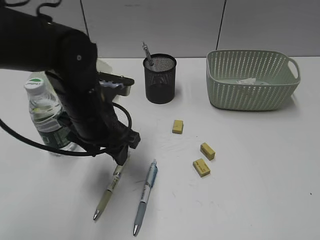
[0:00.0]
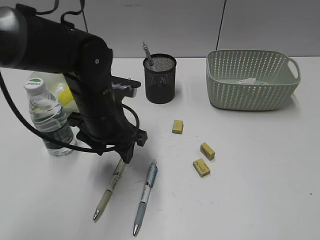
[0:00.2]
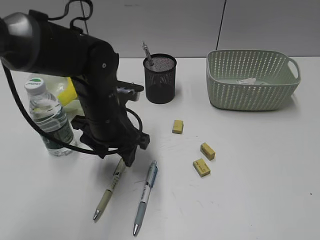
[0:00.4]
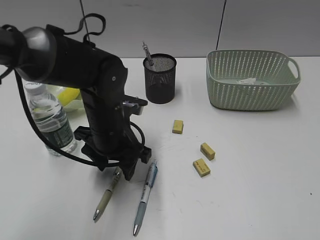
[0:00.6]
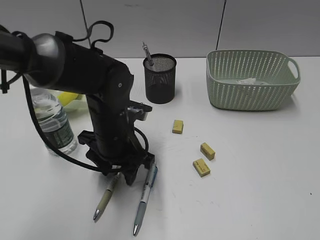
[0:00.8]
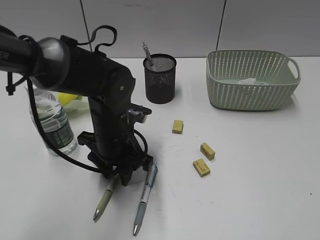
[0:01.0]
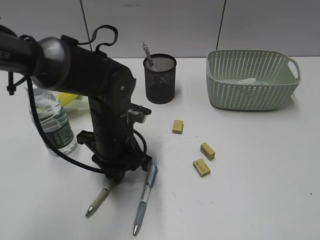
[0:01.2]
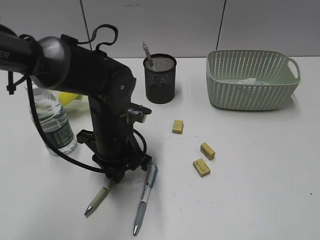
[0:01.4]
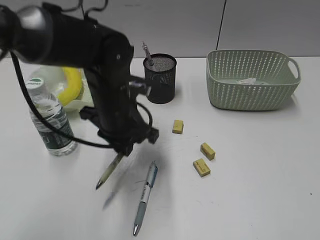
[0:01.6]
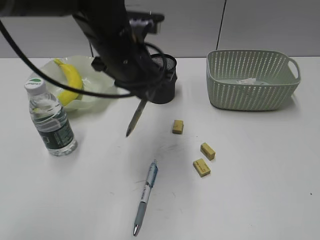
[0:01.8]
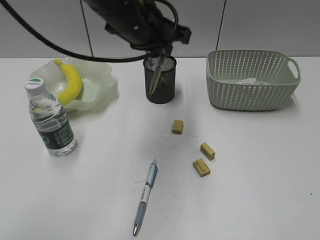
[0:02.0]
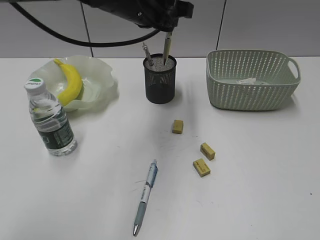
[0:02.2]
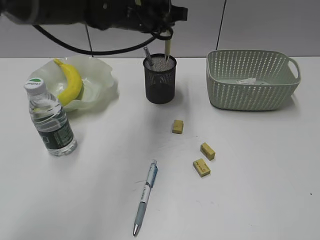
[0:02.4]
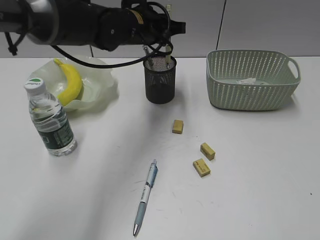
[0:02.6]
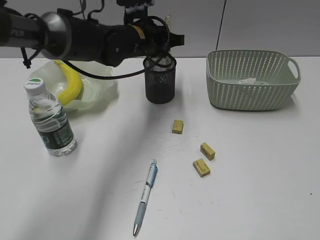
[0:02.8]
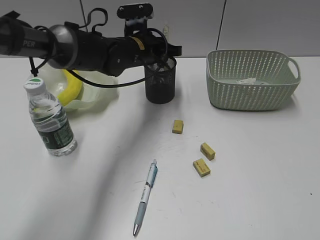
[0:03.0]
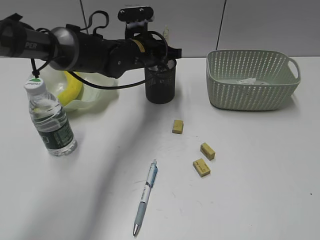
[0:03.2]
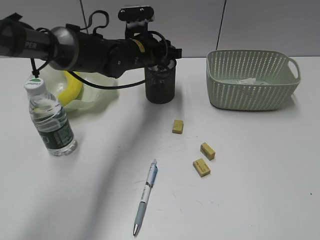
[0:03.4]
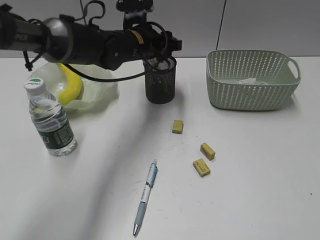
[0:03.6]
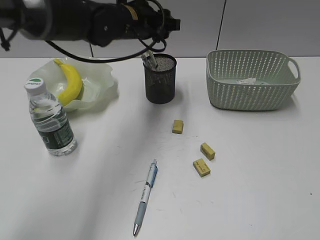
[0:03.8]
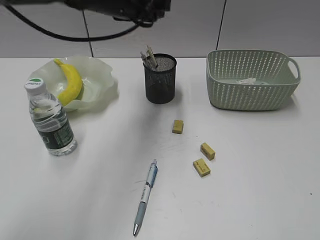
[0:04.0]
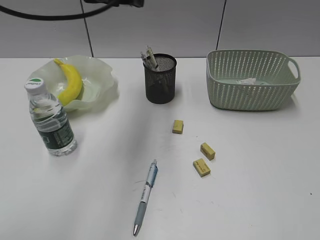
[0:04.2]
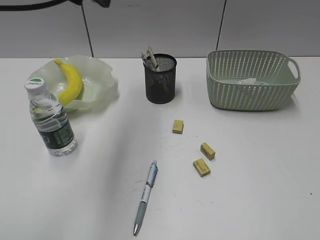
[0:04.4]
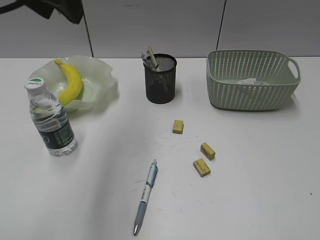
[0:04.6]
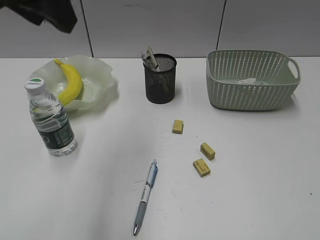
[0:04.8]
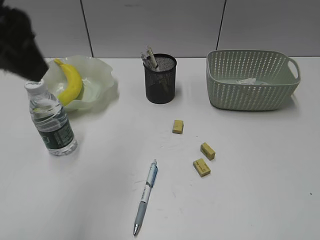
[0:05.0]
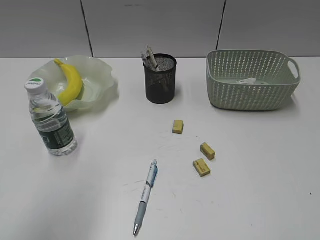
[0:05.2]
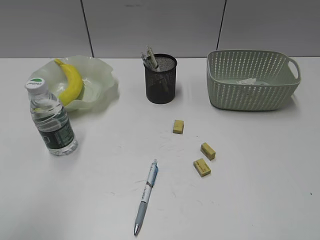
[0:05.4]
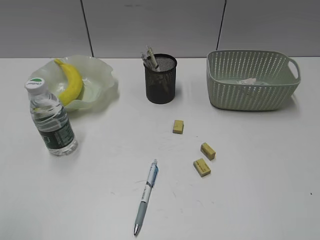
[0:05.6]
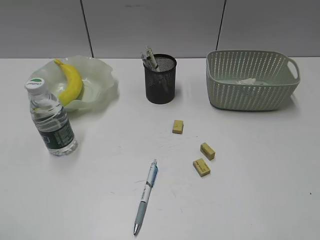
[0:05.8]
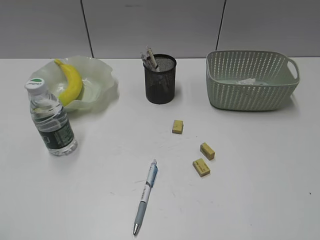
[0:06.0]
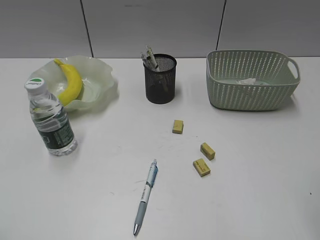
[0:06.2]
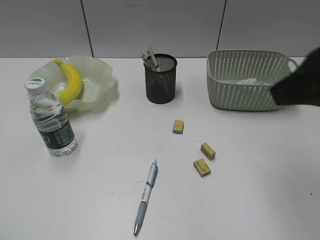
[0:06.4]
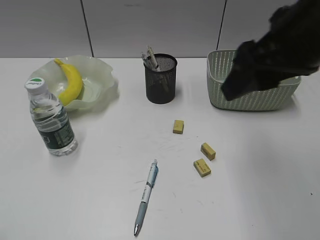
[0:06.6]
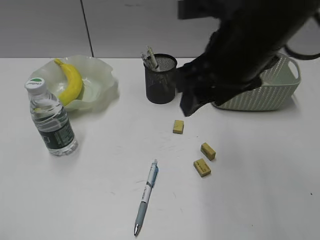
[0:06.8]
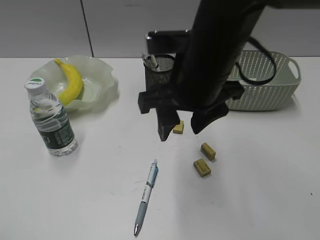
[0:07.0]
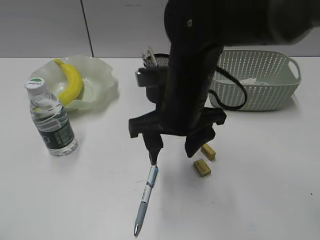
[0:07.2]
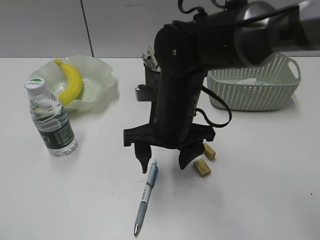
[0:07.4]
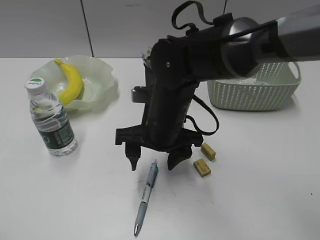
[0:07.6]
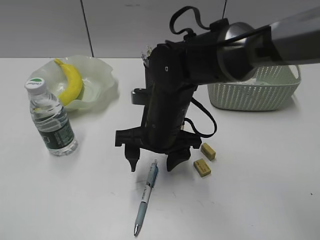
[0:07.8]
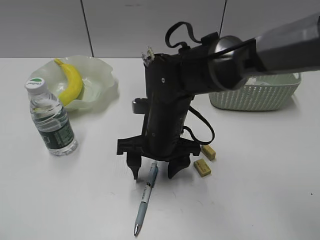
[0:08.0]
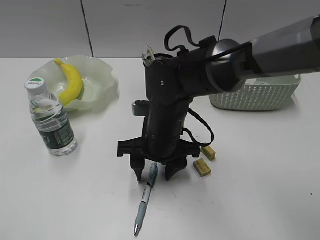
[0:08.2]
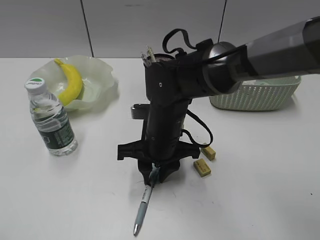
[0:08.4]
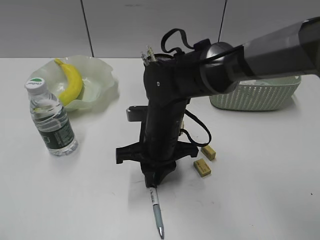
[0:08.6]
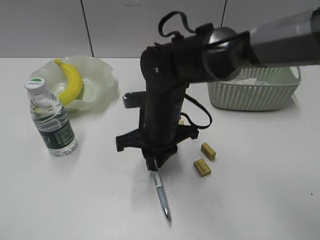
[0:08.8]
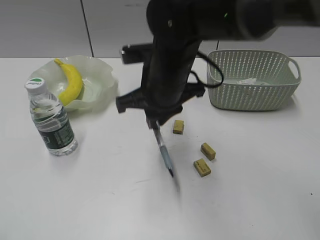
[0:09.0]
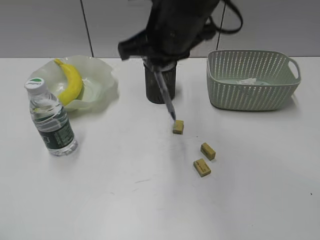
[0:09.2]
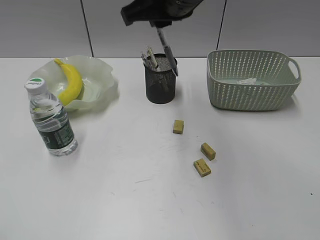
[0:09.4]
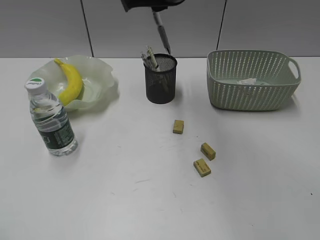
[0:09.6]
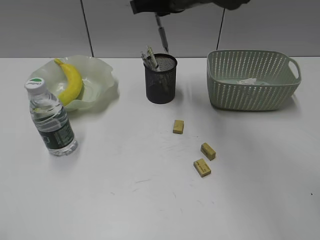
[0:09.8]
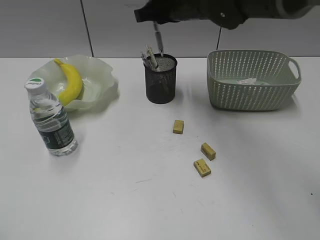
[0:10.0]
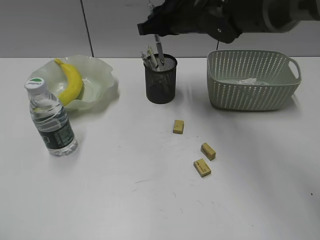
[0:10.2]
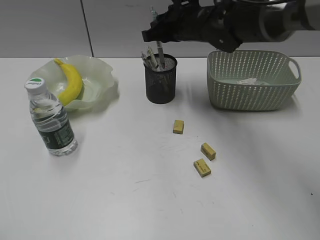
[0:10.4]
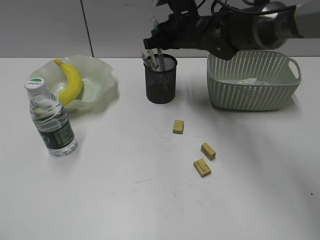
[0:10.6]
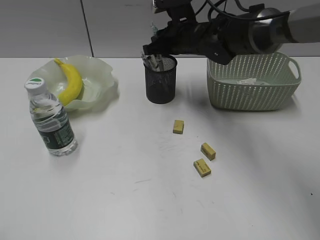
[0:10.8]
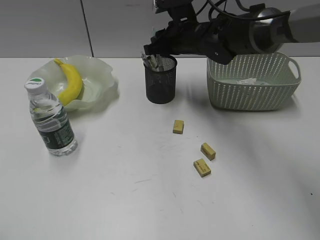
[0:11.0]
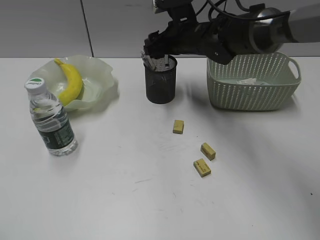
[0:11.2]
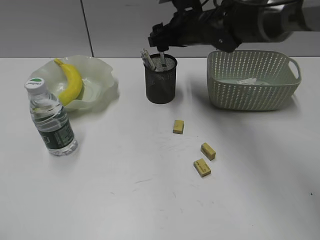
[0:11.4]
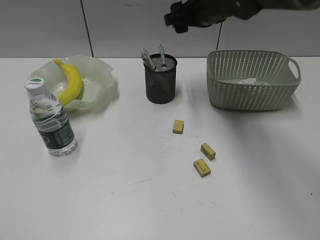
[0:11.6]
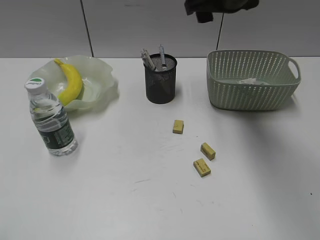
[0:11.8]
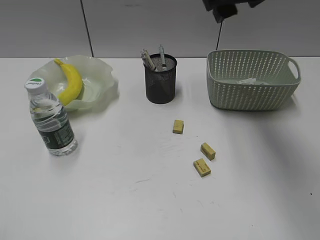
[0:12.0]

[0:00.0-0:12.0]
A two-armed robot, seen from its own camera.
Step, 0:01.4 to 0:03.6: Place the yellow pen in pen holder with left gripper.
Step, 0:03.8 to 0:08.6: Grasp the blue pen with right gripper.
Step, 0:08.8 to 0:11.4: Place the blue pen in pen holder with right gripper.
0:00.0 to 0:01.6: The left gripper closes up.
0:01.6 to 0:03.0: The left gripper shifts approximately 15 cm forward.
0:03.0 to 0:04.4: The left gripper is displaced upward, backward and to the left by about 25 cm, and opens up.
0:04.4 to 0:06.0: The left gripper is displaced backward and to the left by about 40 cm, while the right gripper changes place by roughly 5 cm.
0:06.0 to 0:07.6: The right gripper goes some 40 cm to the left, forward and downward.
0:07.6 to 0:09.0: The right gripper goes about 5 cm upward, and closes up.
0:09.0 to 0:10.4: The right gripper travels forward by about 15 cm.
0:10.4 to 0:12.0: The right gripper shifts roughly 15 cm upward, backward and to the right, and opens up.

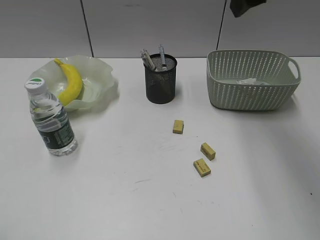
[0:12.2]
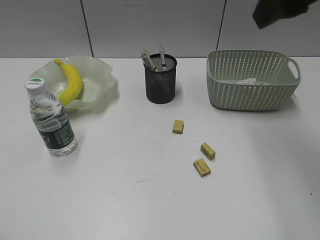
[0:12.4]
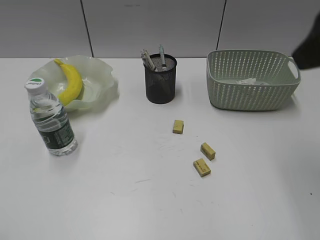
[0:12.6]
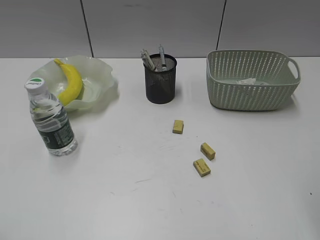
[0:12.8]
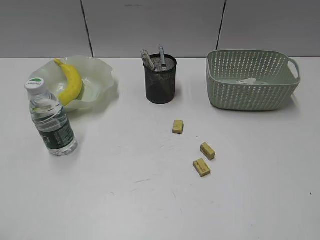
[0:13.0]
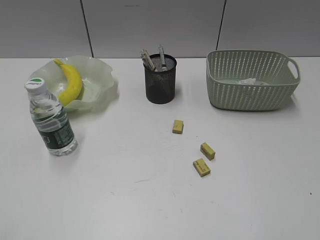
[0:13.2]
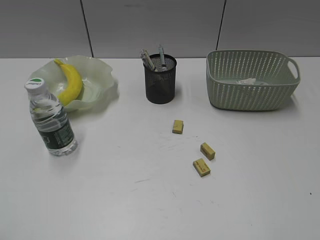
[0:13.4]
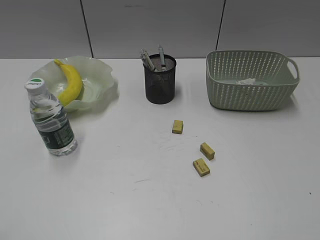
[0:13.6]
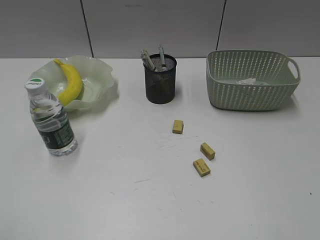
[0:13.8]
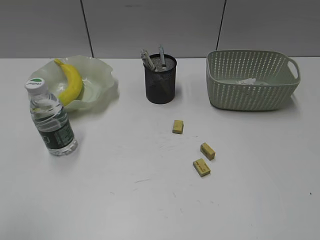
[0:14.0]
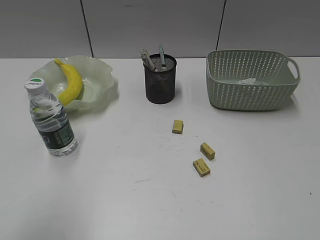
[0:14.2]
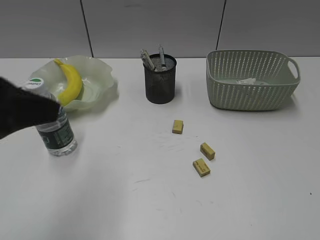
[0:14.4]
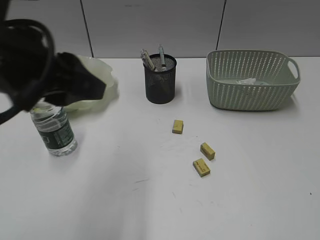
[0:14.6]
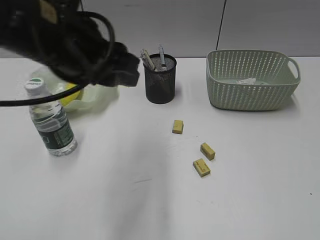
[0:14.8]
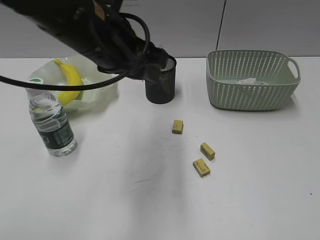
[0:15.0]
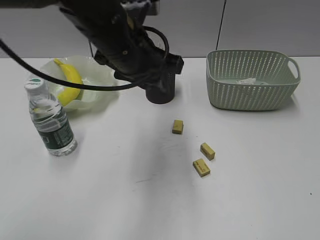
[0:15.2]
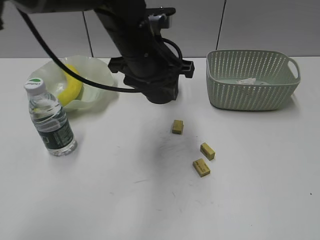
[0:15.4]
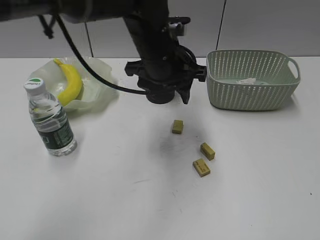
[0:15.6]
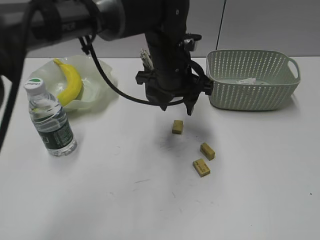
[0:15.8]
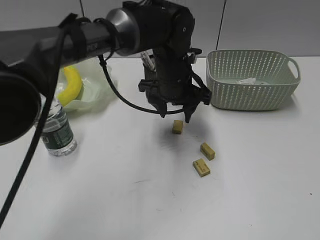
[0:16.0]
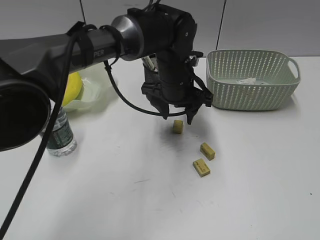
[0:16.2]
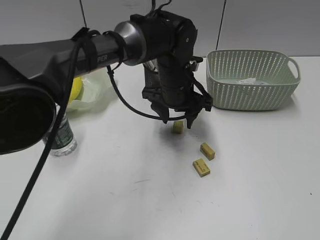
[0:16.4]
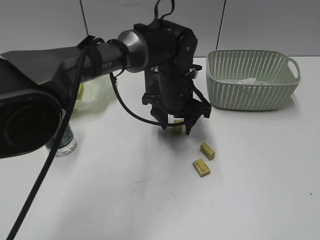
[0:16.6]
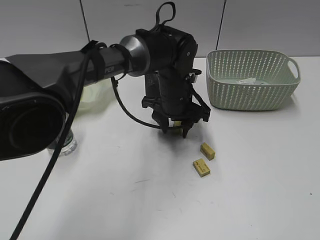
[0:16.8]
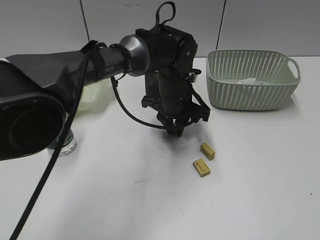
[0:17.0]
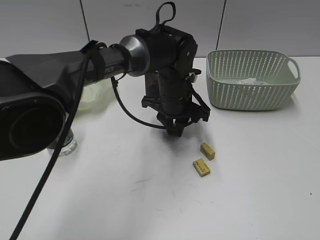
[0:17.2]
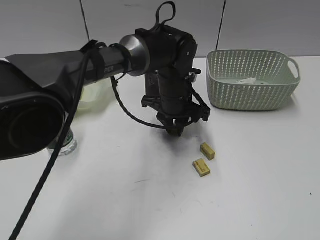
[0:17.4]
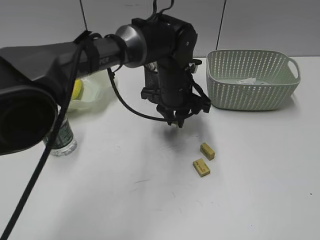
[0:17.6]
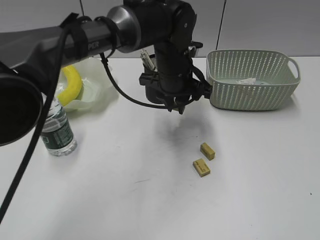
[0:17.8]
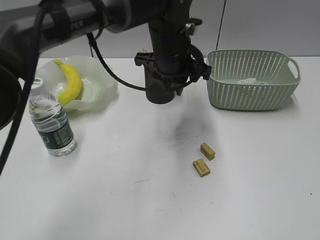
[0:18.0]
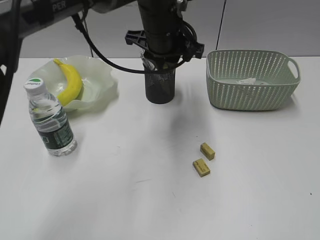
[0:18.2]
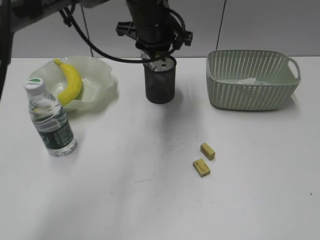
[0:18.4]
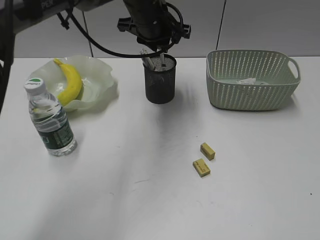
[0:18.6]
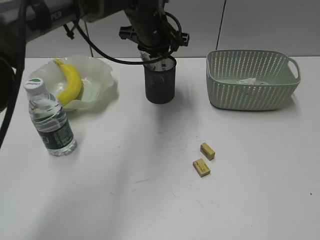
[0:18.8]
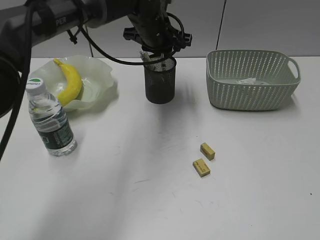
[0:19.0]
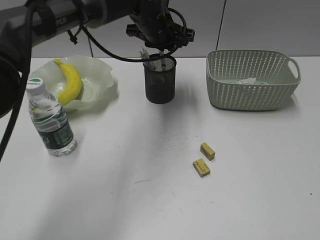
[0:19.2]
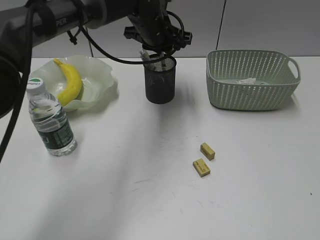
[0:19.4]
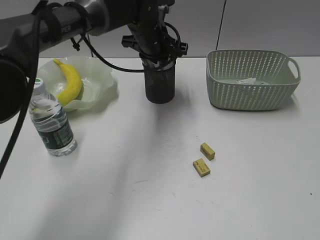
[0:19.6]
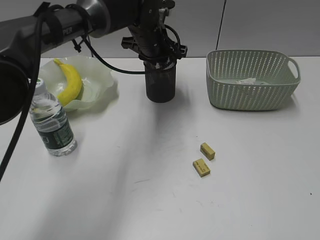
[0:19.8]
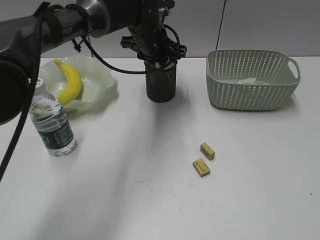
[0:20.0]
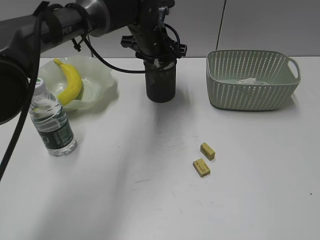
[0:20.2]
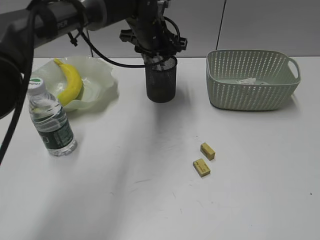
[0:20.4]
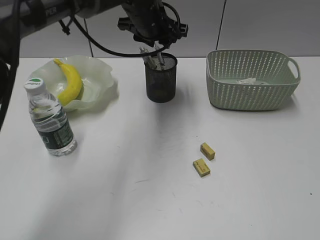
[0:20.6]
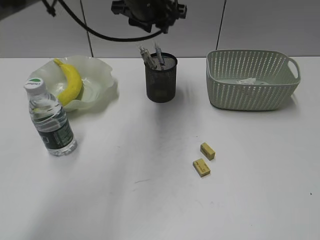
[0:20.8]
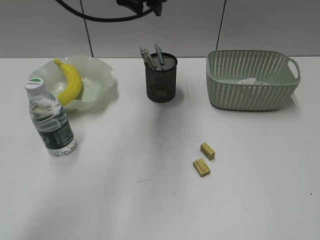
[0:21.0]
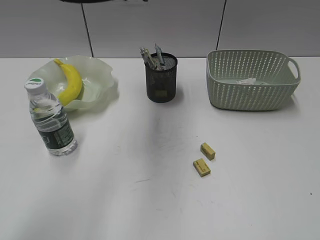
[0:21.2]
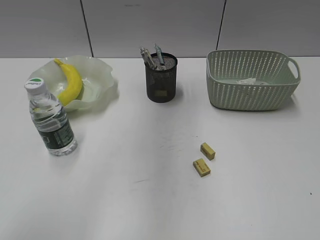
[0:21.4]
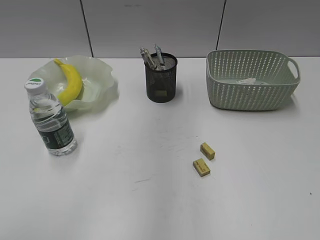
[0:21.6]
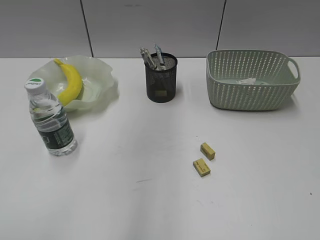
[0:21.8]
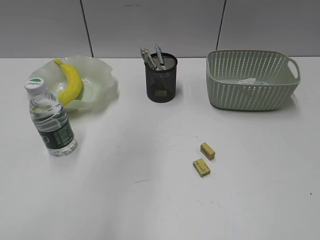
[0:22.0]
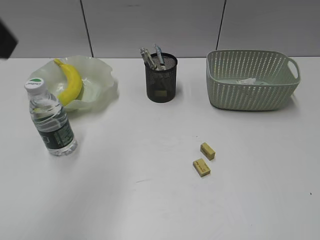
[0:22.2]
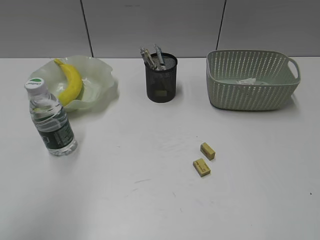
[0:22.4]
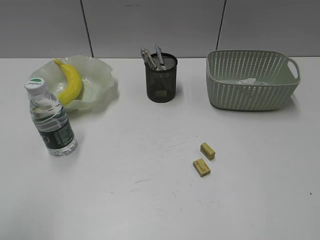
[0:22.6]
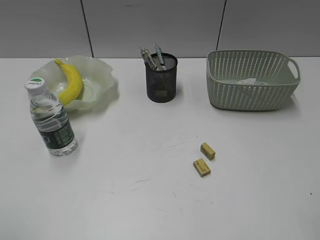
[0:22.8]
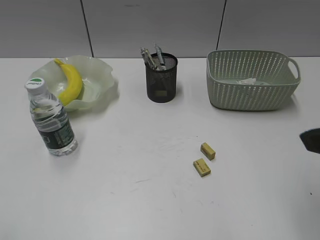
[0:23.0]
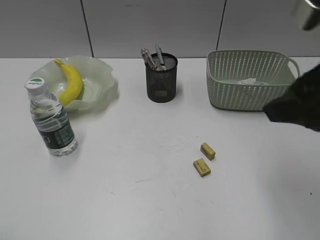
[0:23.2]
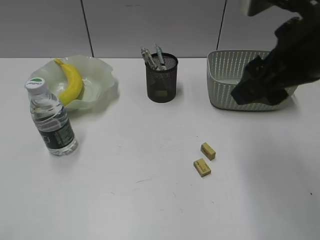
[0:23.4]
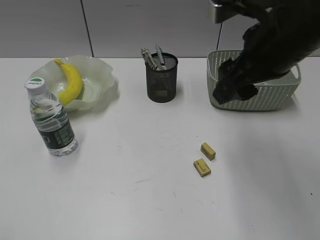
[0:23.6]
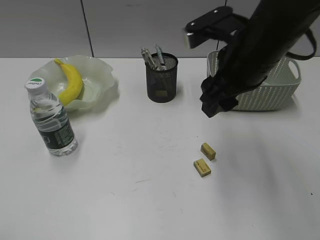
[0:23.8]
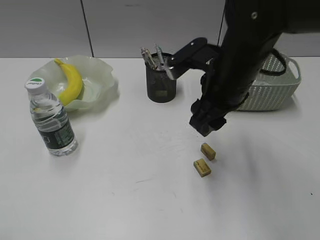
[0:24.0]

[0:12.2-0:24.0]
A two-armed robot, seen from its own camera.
Step, 0:12.2 to 0:17.0: Grasp the eraser with left gripper.
Step, 0:17.2 to 0:20.2: Place the eraser in pen holder with left gripper.
0:12.2 to 0:13.6: The right gripper moves backward and to the right, about 35 cm.
0:13.6 to 0:15.2: The left gripper is displaced forward and to the right by about 40 cm.
0:15.2 to 0:16.6: The left gripper travels downward, to the right and forward by roughly 20 cm.
0:16.6 to 0:18.2: The left gripper is displaced upward by roughly 10 cm, and closes.
0:18.2 to 0:19.6: The left gripper heads forward, covering some 5 cm.
0:19.6 to 0:21.0: The left gripper shifts some 10 cm upward.
0:21.0 to 0:22.6: The left gripper goes about 40 cm backward and to the left, while the right gripper ends up about 5 cm from where it was.
0:22.6 to 0:24.0: The left gripper is displaced backward and downward by roughly 10 cm; the right gripper travels forward and to the left by roughly 30 cm.
